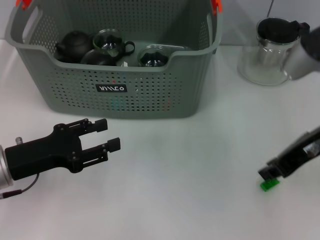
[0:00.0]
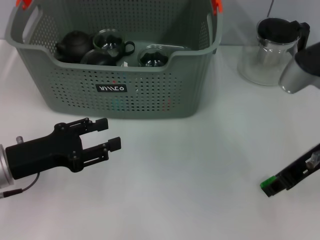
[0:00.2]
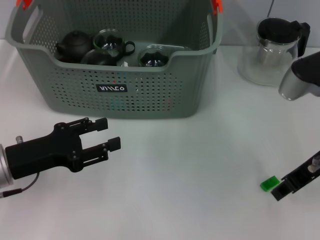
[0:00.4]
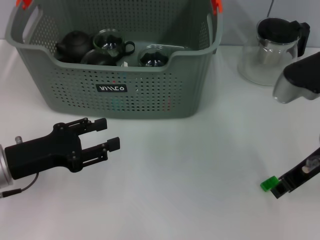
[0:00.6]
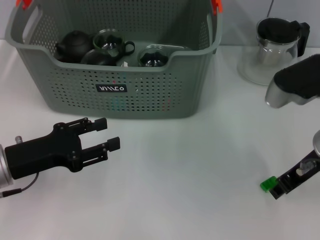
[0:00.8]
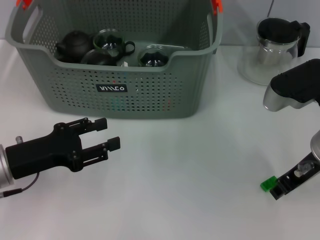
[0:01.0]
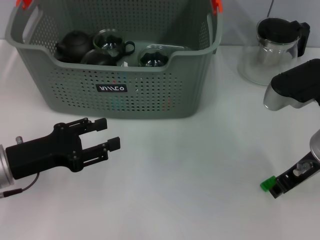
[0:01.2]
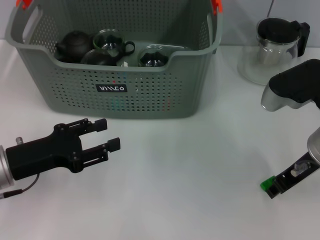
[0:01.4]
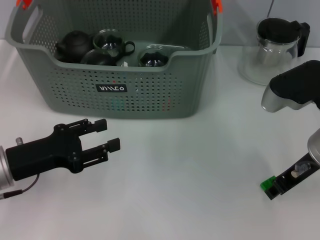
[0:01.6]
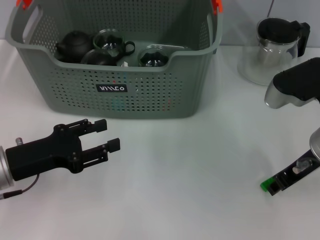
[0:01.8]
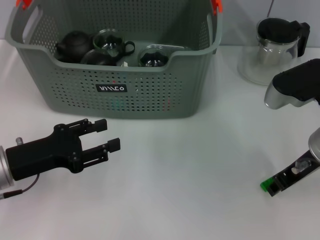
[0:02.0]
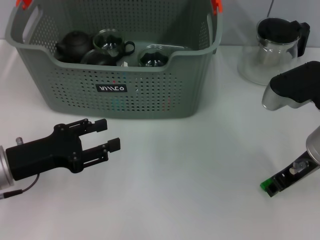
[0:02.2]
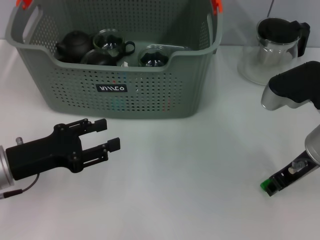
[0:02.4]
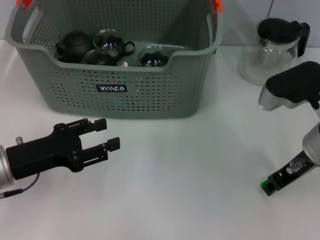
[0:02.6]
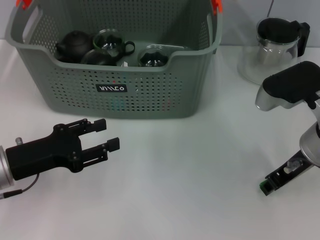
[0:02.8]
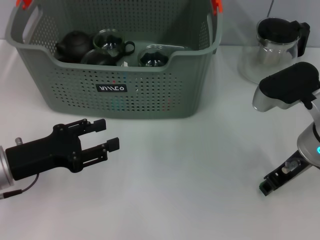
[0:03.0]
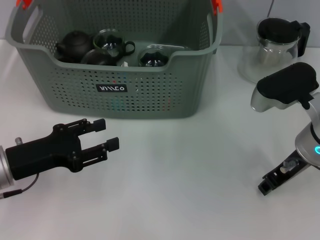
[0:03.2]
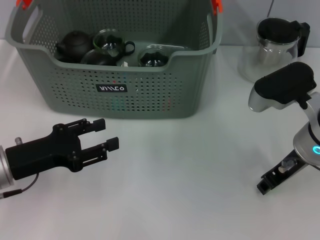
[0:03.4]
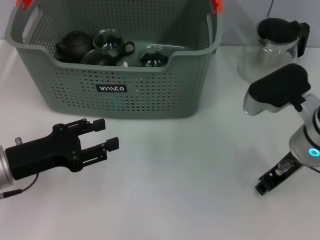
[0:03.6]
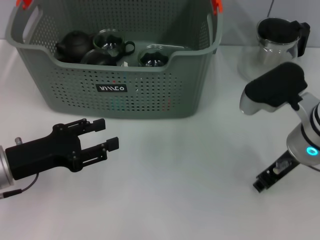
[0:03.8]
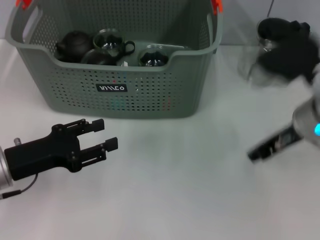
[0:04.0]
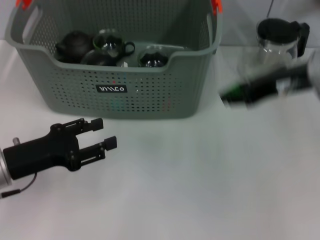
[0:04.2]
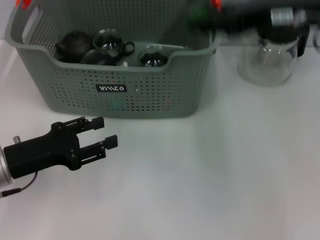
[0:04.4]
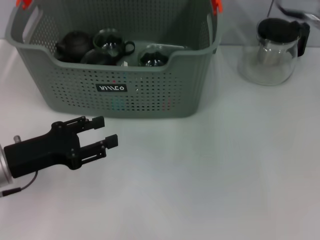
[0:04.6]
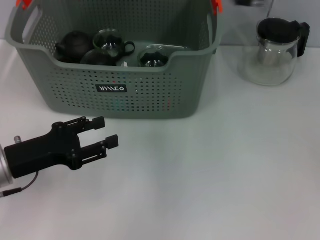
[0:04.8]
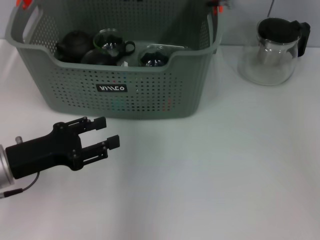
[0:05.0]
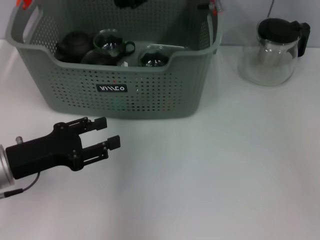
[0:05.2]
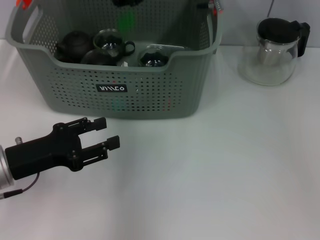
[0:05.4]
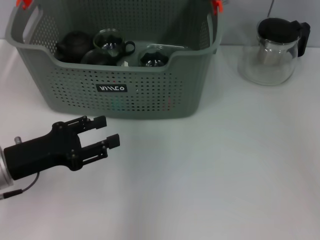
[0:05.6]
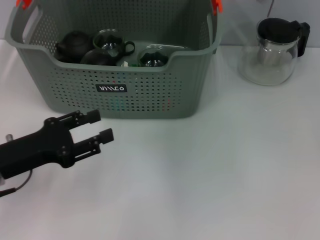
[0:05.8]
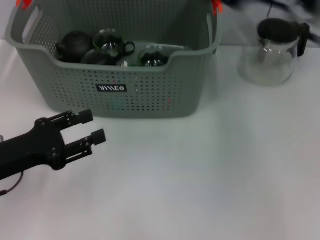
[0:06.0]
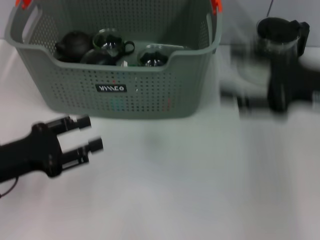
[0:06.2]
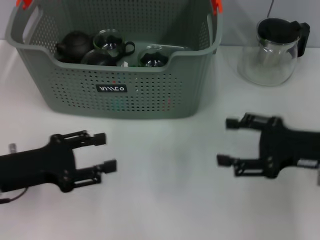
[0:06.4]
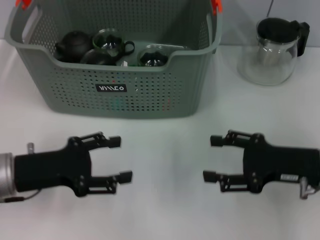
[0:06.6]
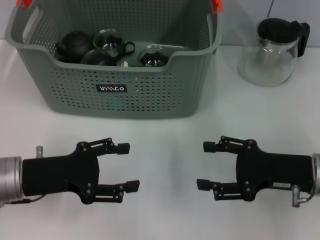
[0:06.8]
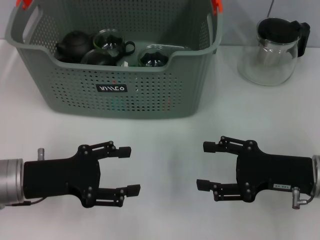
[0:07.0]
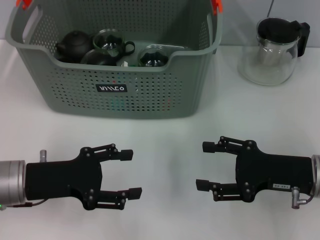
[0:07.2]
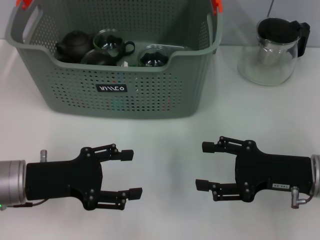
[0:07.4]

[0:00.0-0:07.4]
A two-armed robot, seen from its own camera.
Task of the whole recording: pick up the teacup on the table and place it into the storage bin, pick up the block on the table and place it into the storage bin.
Step, 0:00.0 to 0:03.6: Grasp the green block with right gripper.
Step, 0:03.8 to 0:05.4: Place the green block in the storage box with right gripper.
0:00.0 to 0:01.4: The right gripper heads downward, covering some 5 cm, and opens up.
0:01.4 to 0:03.0: The grippers move only a little.
0:03.0 to 0:04.4: The right gripper goes roughly 15 cm upward.
0:04.4 to 0:06.0: The right gripper travels to the left and back again, about 15 cm each way, and opens its fingers.
0:06.0 to 0:07.4: The right gripper goes roughly 20 cm downward and backward.
